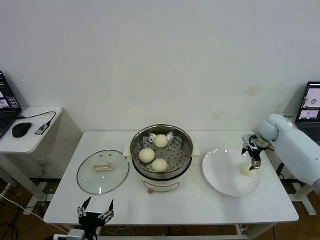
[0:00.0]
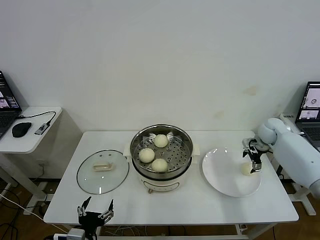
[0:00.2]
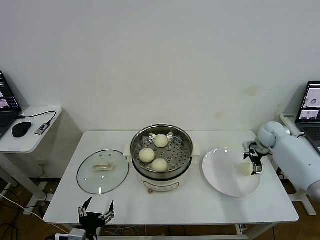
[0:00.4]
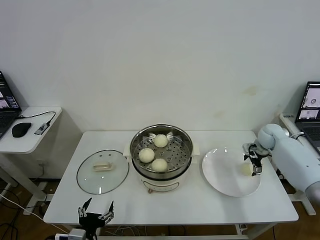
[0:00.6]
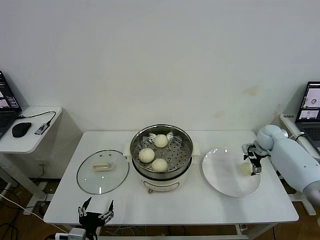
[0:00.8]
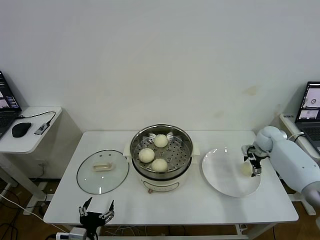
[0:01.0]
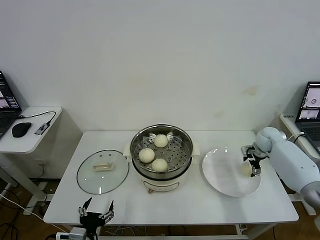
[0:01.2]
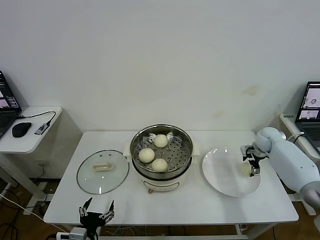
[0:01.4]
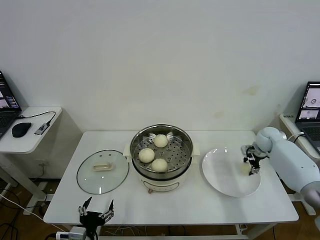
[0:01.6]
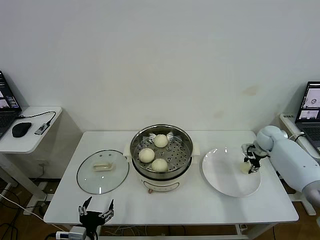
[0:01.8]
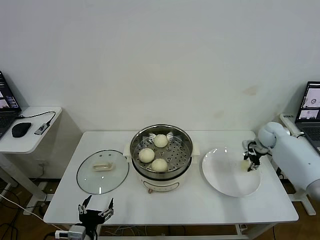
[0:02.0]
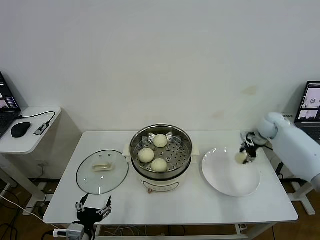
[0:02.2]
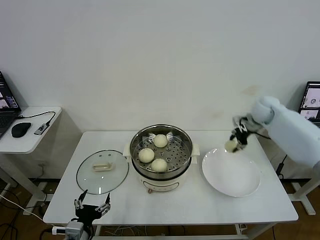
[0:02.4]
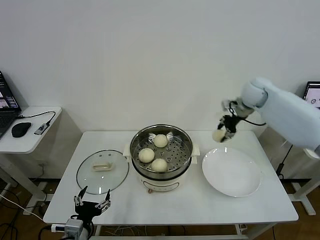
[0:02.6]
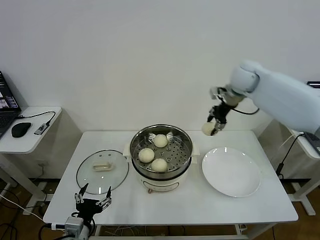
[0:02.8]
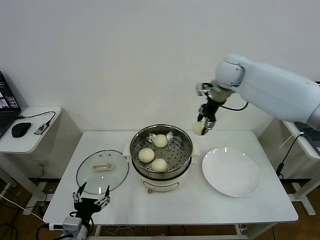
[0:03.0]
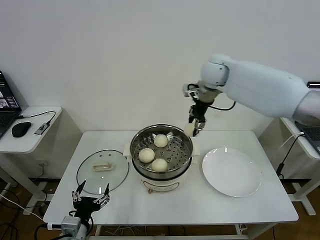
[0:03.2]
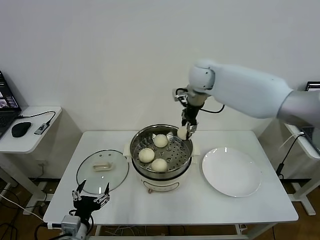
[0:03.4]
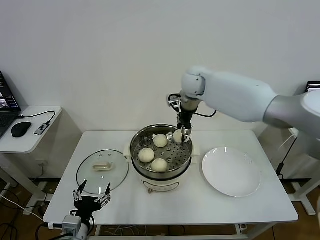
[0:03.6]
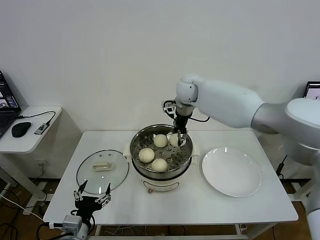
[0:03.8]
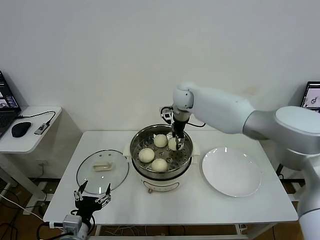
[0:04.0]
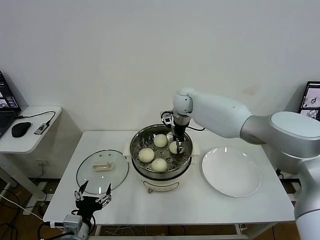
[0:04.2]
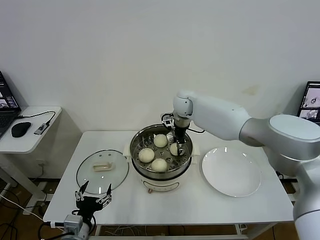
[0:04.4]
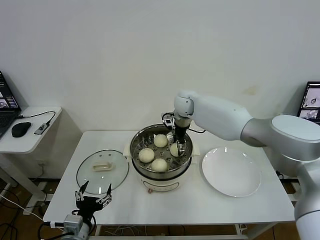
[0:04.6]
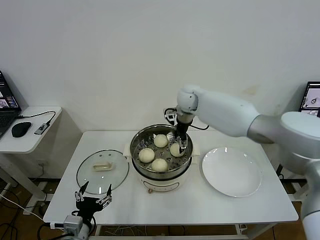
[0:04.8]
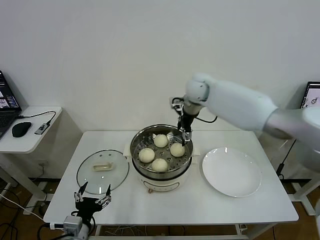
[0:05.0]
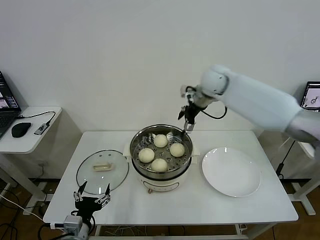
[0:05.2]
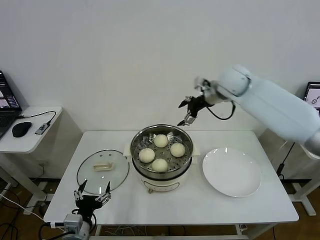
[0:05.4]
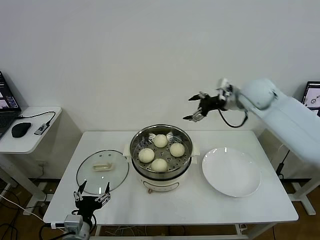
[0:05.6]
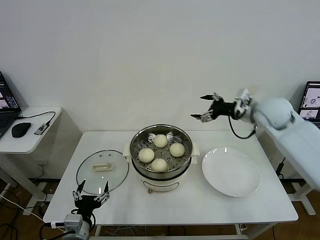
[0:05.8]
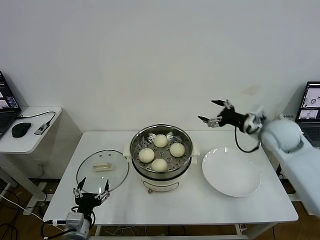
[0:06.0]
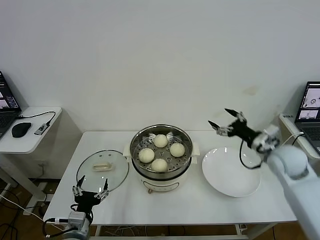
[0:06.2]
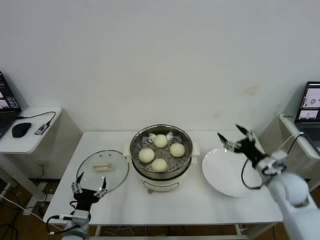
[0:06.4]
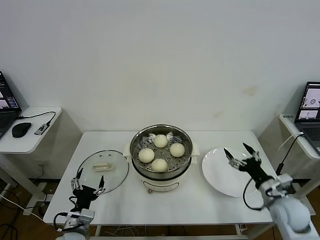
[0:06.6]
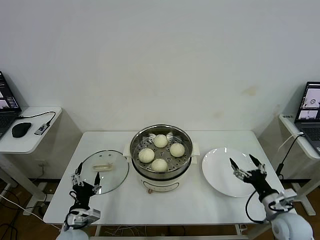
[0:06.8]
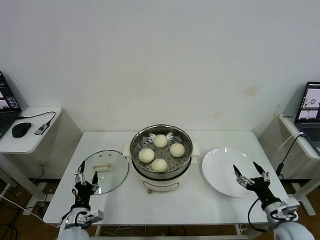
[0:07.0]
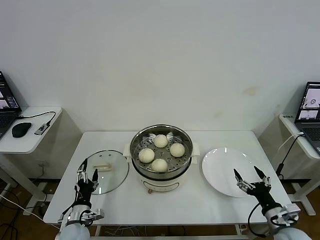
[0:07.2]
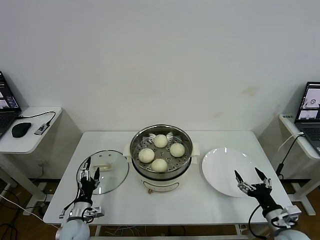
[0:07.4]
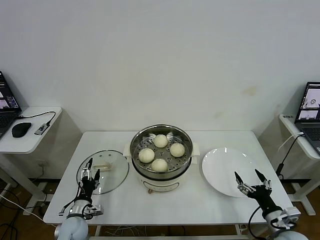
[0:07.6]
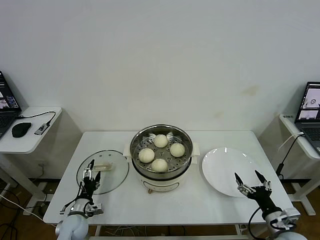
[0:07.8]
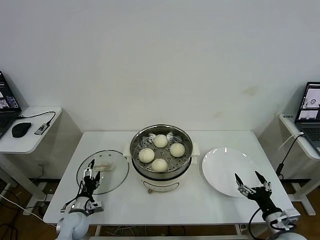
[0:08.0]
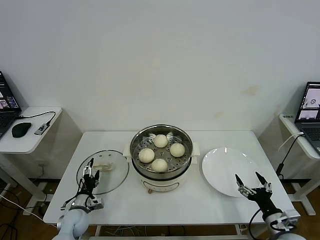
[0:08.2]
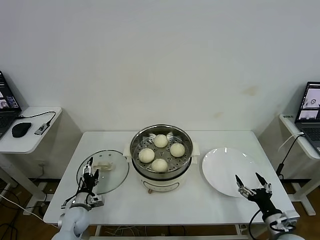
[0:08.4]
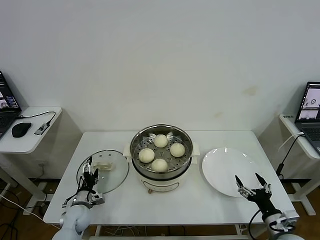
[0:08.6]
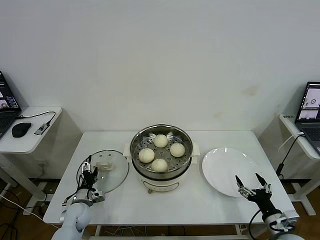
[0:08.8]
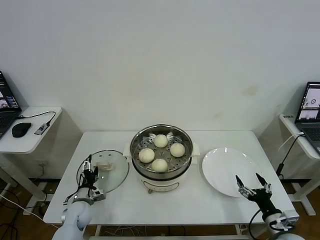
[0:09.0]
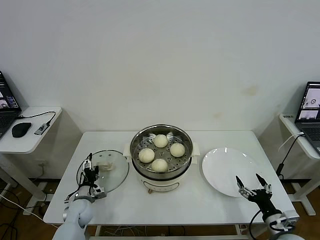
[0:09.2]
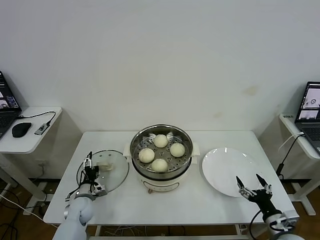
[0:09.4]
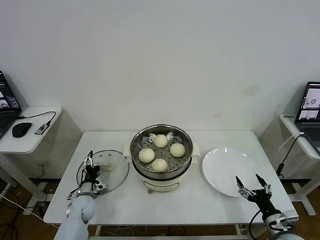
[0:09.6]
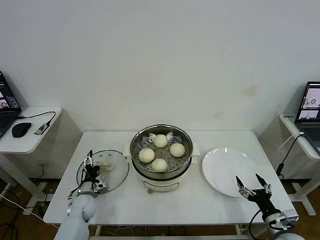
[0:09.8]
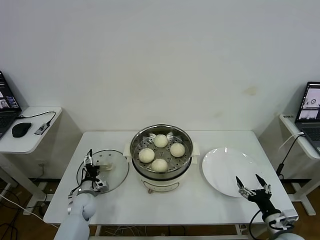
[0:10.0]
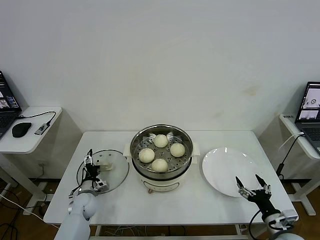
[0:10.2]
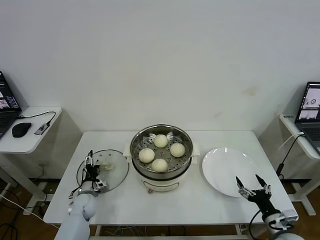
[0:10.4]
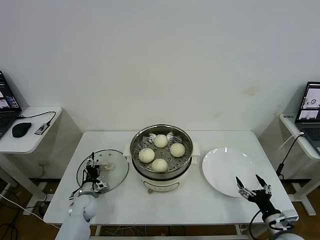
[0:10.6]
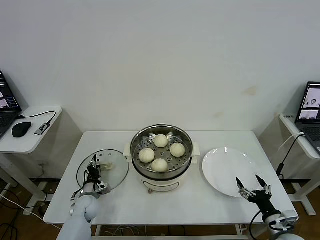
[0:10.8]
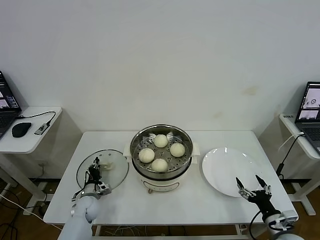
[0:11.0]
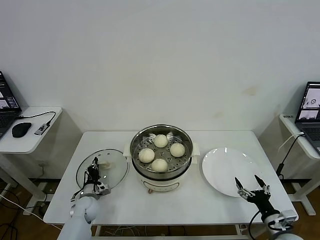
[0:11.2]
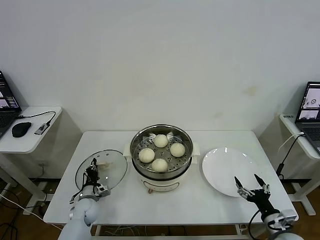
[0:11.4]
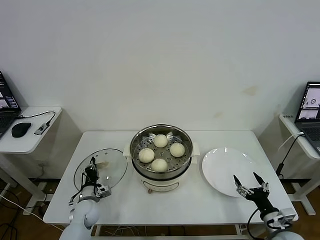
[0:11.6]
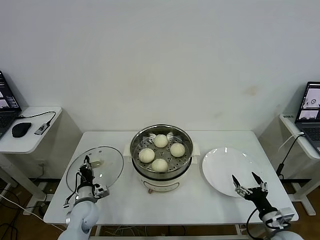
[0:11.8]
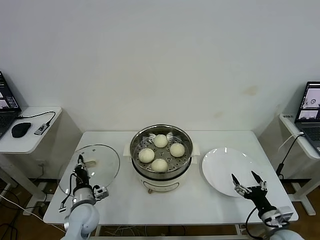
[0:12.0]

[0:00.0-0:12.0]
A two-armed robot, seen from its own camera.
Task of the whole recording: take steamed baozi put them in steamer then cover it.
Step, 0:00.0 to 0:02.0: Grasp the baozi in the plate with right gripper.
Step, 0:02.2 to 0:04.8: Place the baozi on the steamer with right gripper.
Step, 0:05.0 to 0:11.4: Grasp the pot lid with left gripper.
0:00.0 to 0:01.6: The right gripper travels downward by approximately 5 cm, and closes.
0:01.6 to 0:03.0: The right gripper heads upward and to the left, covering about 35 cm.
0:03.0 to 0:04.4: The right gripper moves downward and to the left, approximately 20 cm.
0:04.4 to 0:06.0: The right gripper heads to the right and backward, covering about 30 cm, and opens its fingers.
0:06.0 to 0:07.6: The left gripper moves downward, forward and to the left, roughly 15 cm; the right gripper goes about 35 cm backward and downward.
0:07.6 to 0:09.0: The left gripper shifts roughly 5 cm forward.
0:09.0 to 0:10.4: There are only small adjustments of the grippers.
0:10.4 to 0:12.0: The left gripper travels upward and backward by about 10 cm, and closes its fingers.

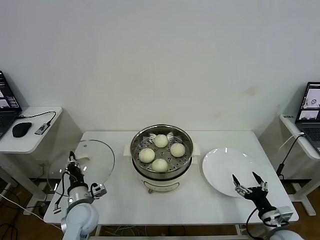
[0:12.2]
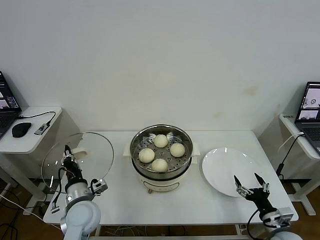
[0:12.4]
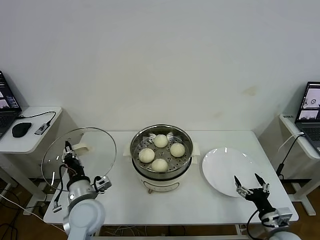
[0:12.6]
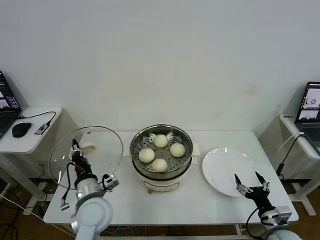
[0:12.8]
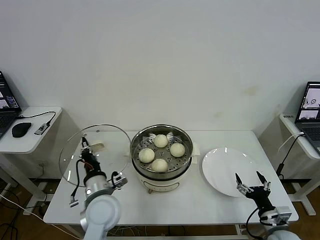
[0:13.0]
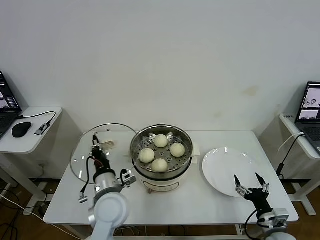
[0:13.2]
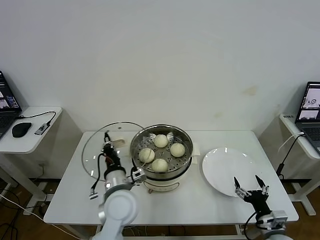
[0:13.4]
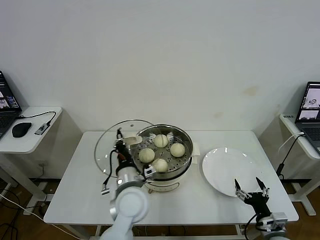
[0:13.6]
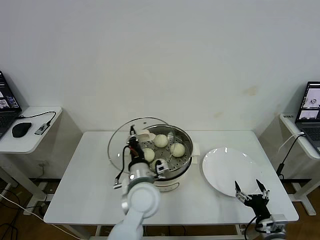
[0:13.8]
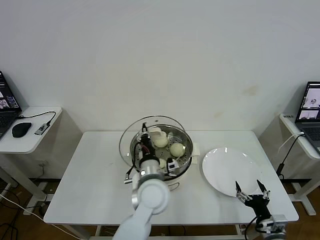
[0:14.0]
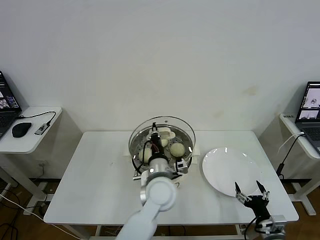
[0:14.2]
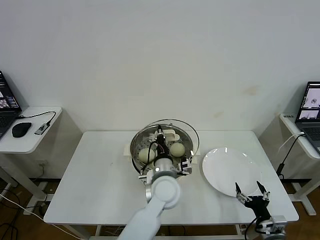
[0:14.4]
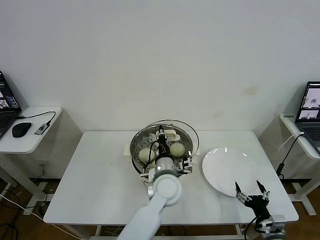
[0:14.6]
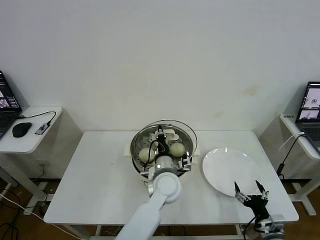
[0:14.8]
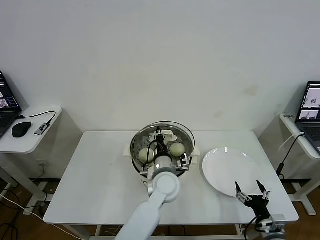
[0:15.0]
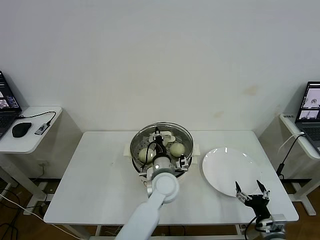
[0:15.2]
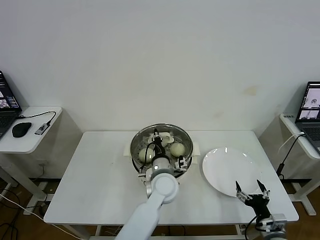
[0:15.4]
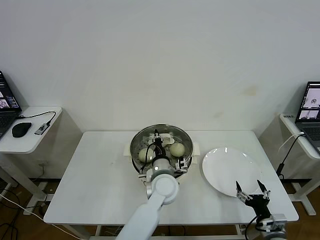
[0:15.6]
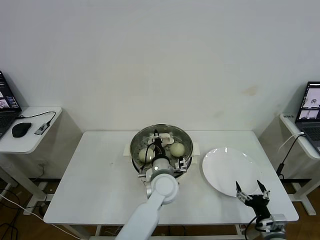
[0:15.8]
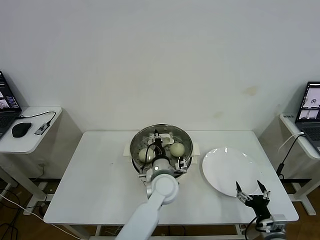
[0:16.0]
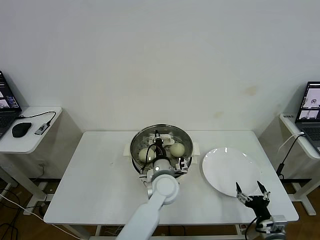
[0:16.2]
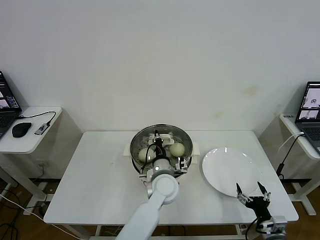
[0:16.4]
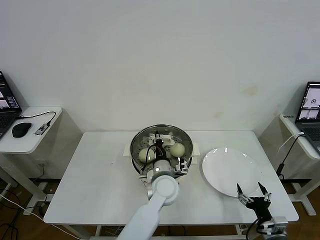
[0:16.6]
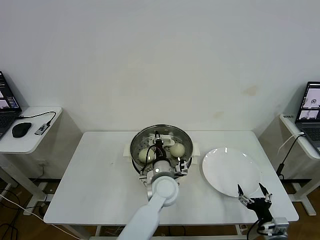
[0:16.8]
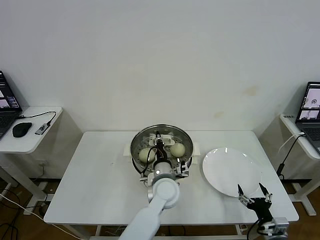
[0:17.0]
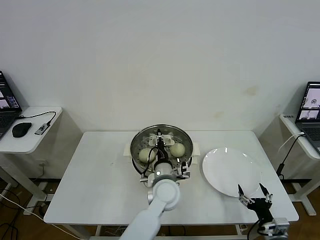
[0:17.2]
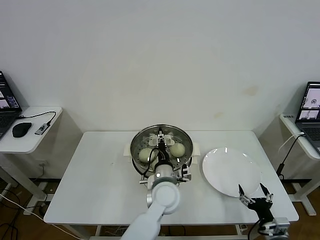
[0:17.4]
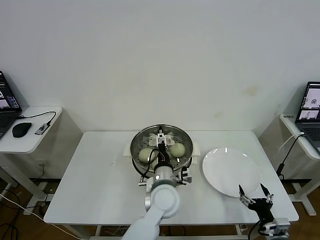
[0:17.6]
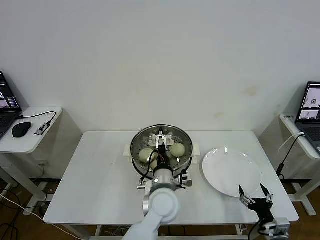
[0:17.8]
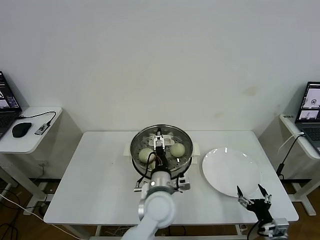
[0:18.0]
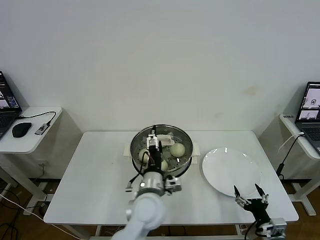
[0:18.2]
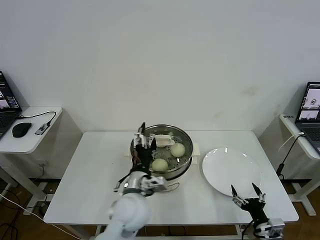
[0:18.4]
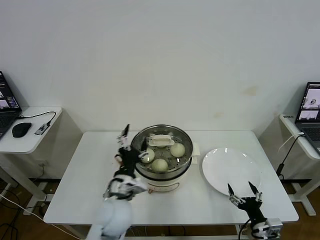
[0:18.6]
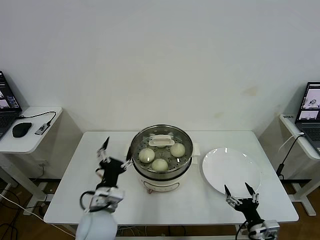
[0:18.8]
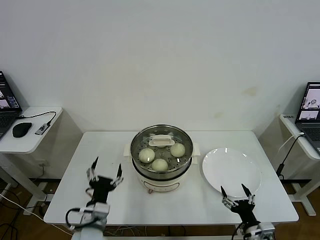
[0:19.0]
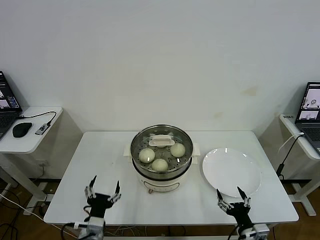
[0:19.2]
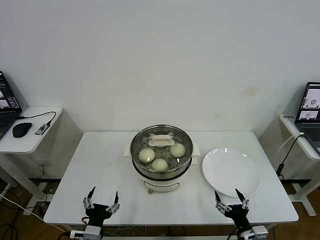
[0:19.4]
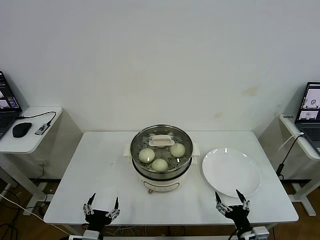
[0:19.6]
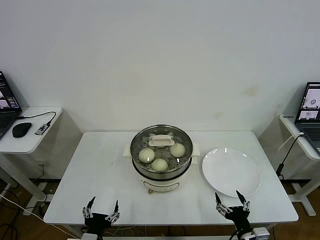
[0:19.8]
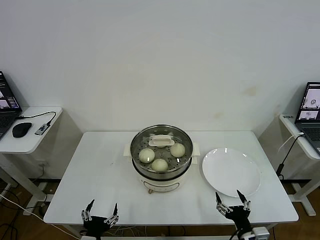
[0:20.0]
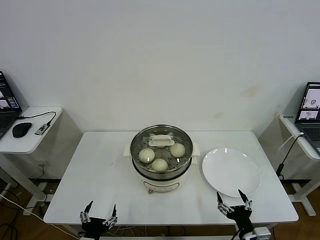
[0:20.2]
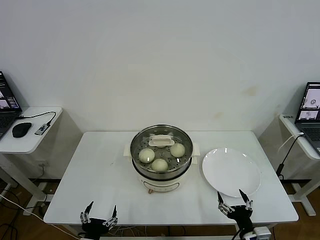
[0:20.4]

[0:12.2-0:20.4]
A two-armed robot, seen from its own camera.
Task of the whole recording: take steamed baozi put them in steamer then cover it.
Step, 0:12.2 to 0:17.8: Place the pot lid on the steamer with left gripper.
0:12.2 to 0:13.8: The left gripper is displaced to the right and upward by some 25 cm.
0:13.8 to 0:15.4: The left gripper is displaced to the right and forward by some 10 cm.
0:15.4 to 0:17.2: The left gripper opens.
0:17.2 to 0:18.8: The left gripper moves to the left and backward, approximately 20 cm, and opens.
0:18.8 to 0:20.4: The right gripper ends up about 5 cm from where it was. Meanwhile the left gripper moves backward, downward and to the left, about 15 cm.
